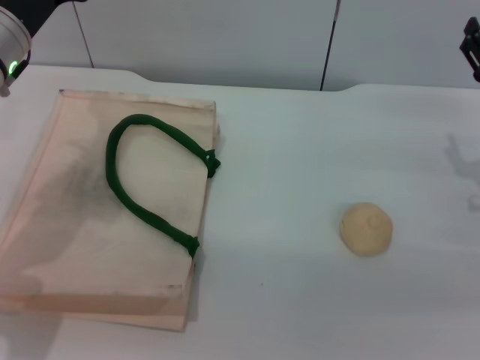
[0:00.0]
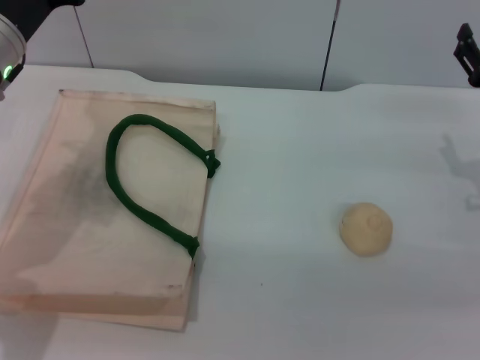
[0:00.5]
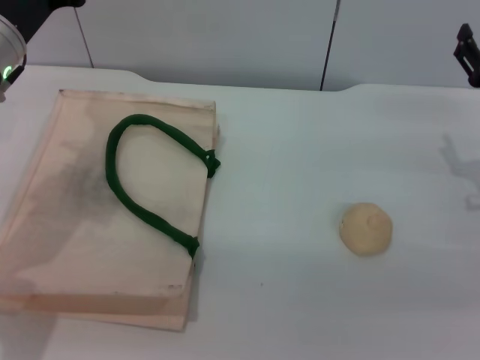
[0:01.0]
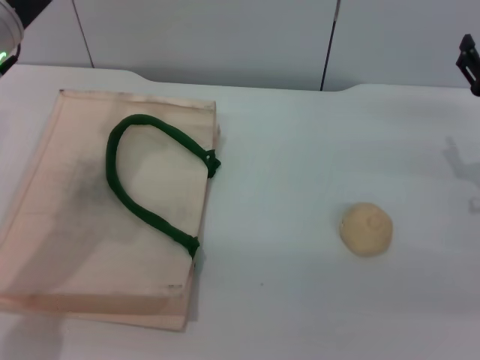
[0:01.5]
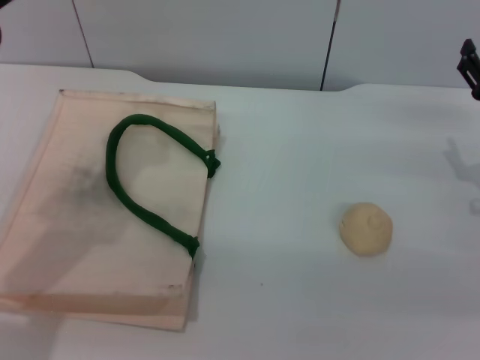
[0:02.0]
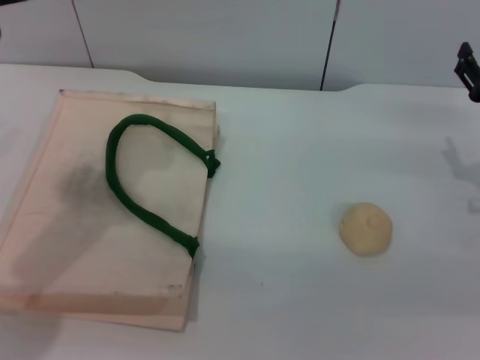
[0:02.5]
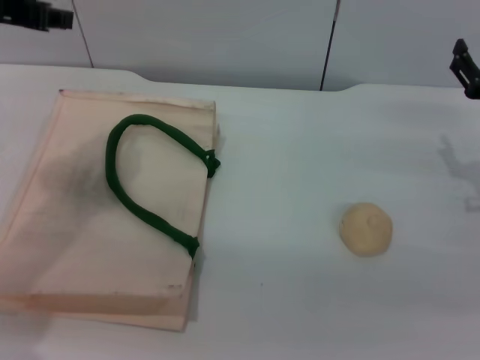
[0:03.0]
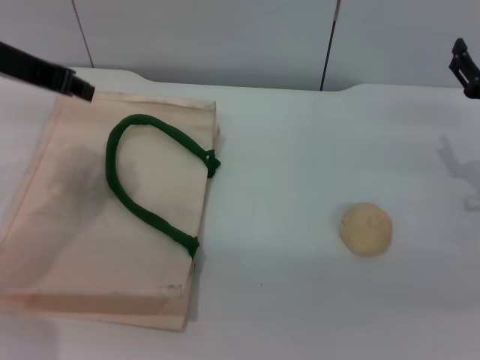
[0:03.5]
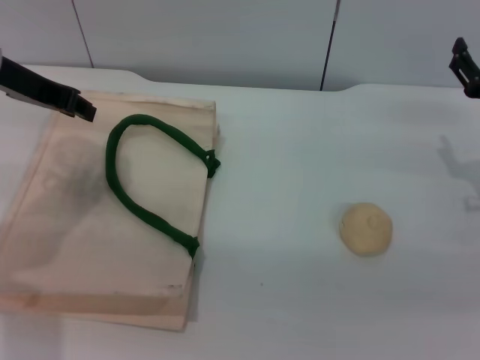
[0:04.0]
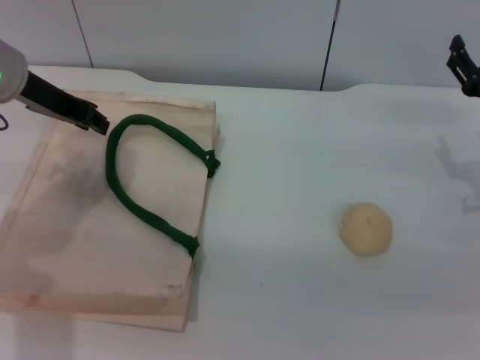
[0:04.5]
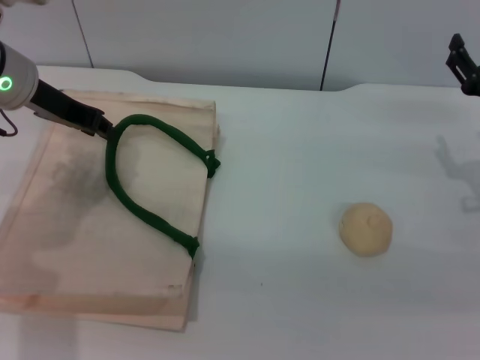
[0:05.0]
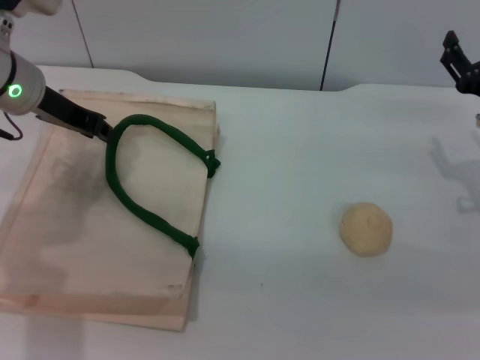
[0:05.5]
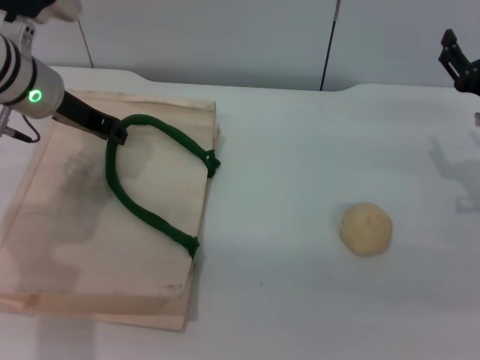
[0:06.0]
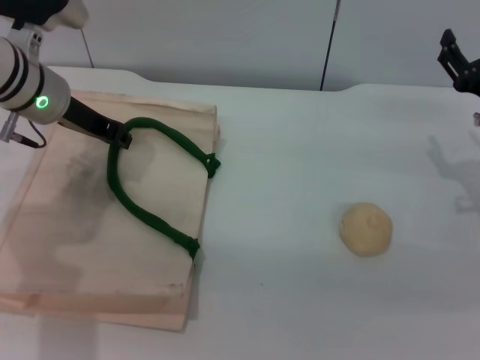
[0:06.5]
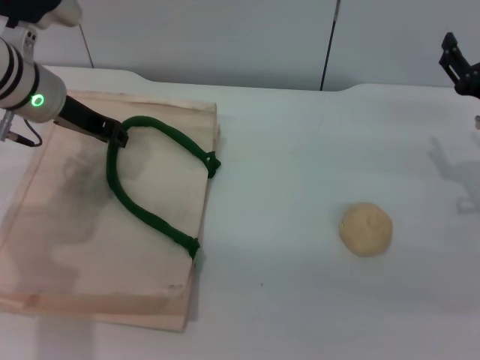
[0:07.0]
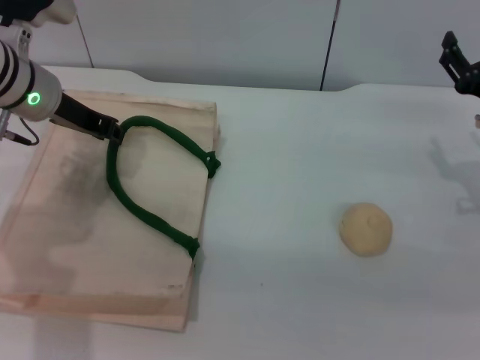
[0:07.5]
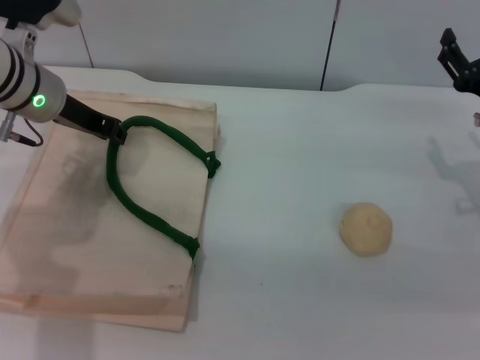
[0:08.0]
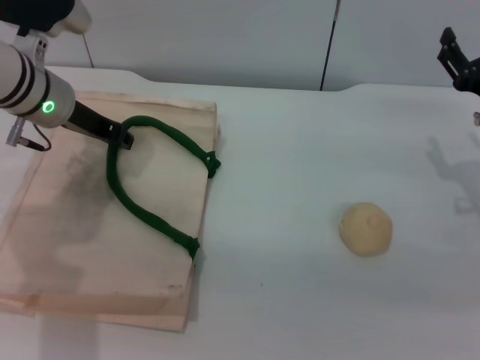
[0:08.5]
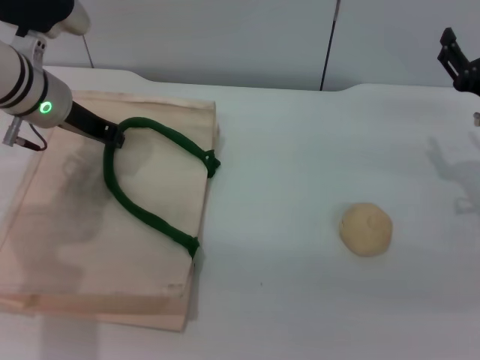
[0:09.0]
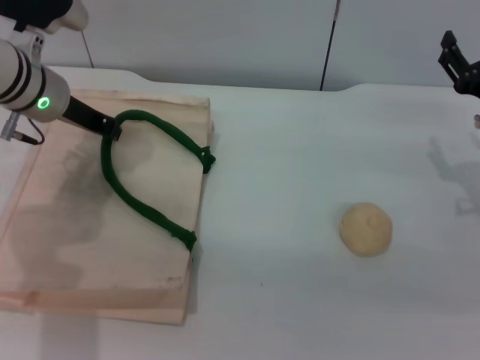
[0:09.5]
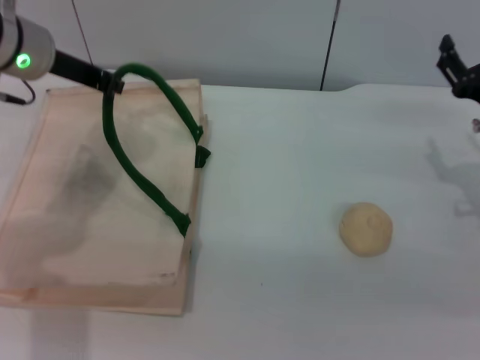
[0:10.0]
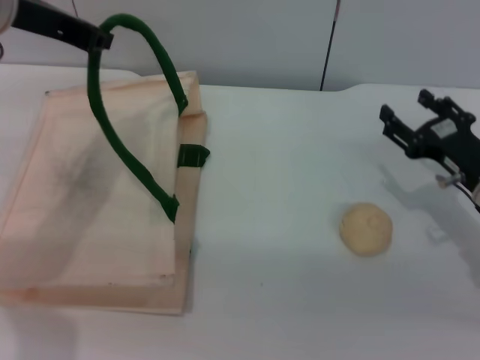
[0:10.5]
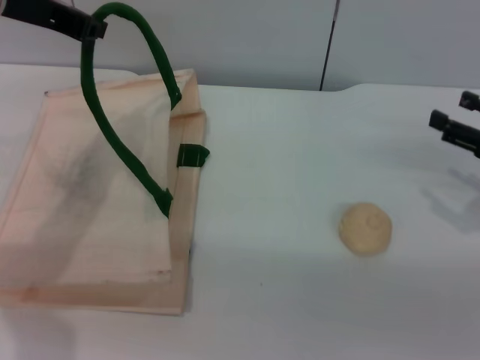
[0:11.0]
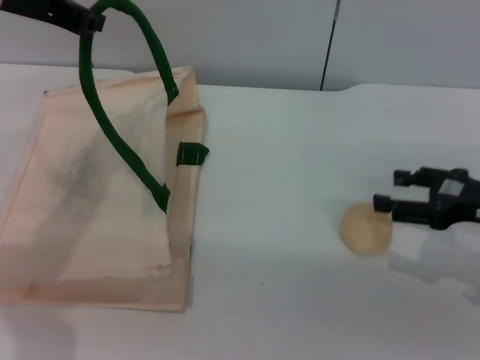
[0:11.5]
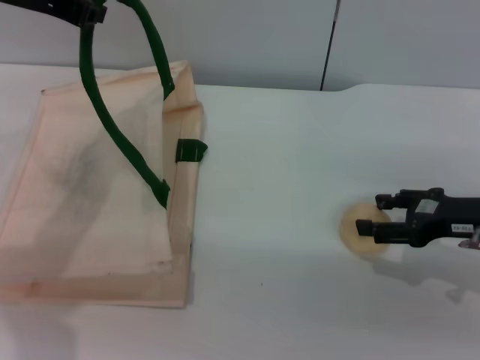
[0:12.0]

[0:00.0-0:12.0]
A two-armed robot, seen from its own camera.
Task of the whole recording: pick up the egg yolk pastry from the table and place it in the white handbag.
Step, 0:00.0 to 0:10.0: Lift the woven bag with the left gripper to open it.
0:00.0 to 0:02.0: The left gripper moves upward and backward, about 10 cm.
0:02.0 to 0:04.0: The left gripper ends up approximately 5 cm from where it was.
0:04.0 to 0:06.0: The left gripper shifts roughly 5 cm downward.
0:06.0 to 0:08.0: Both grippers stay about where they are.
0:08.0 to 0:10.0: The left gripper travels upward by about 5 cm, and closes its fingers.
0:10.0 to 0:12.0: The left gripper is displaced upward by roughly 10 cm.

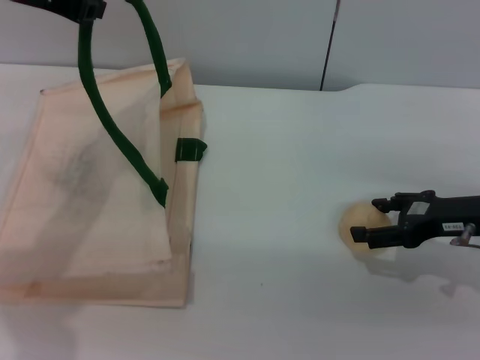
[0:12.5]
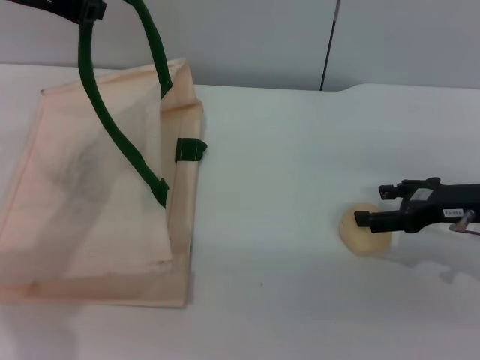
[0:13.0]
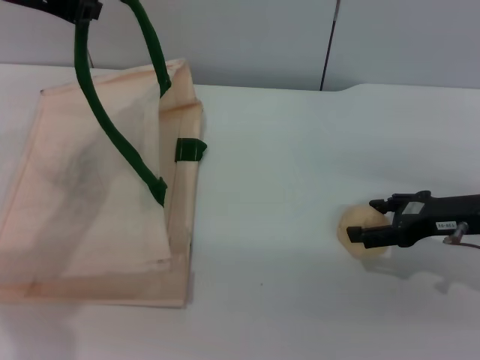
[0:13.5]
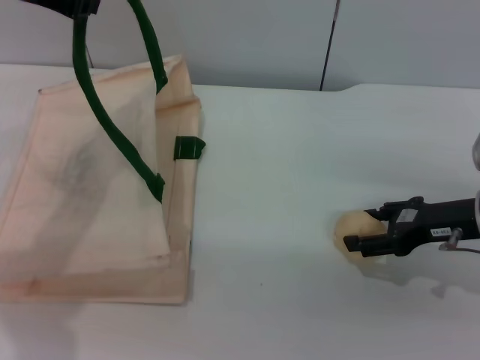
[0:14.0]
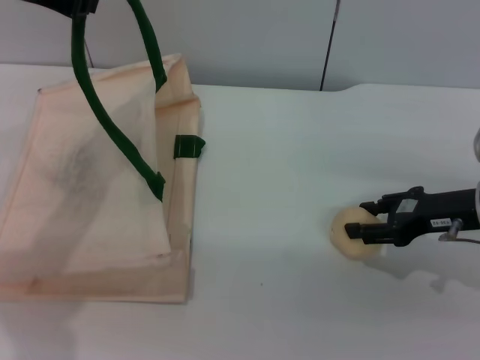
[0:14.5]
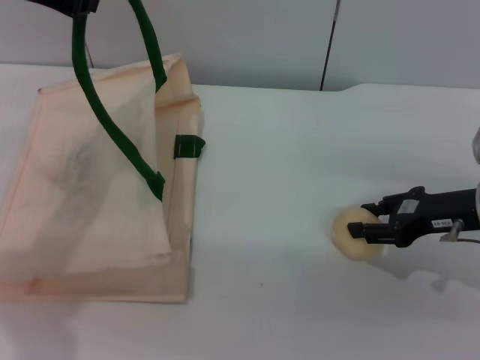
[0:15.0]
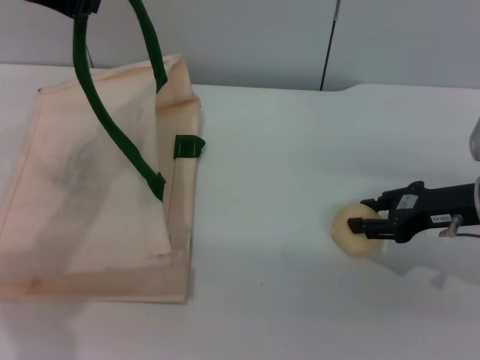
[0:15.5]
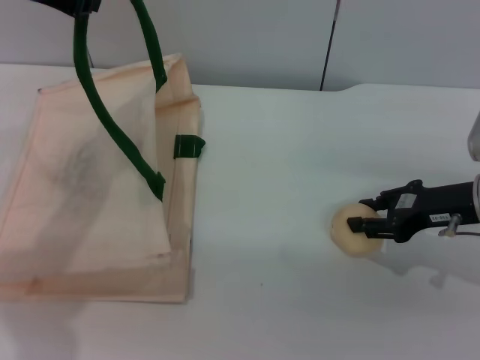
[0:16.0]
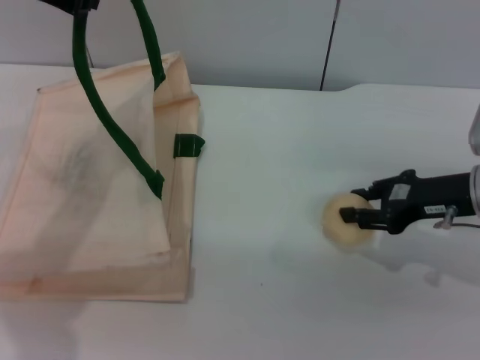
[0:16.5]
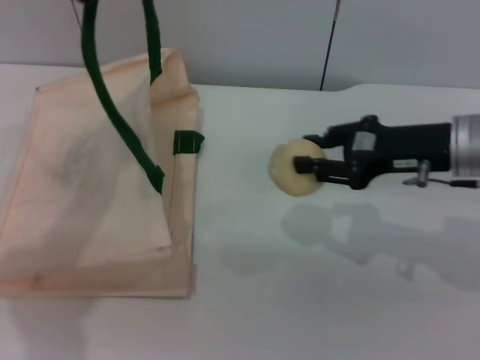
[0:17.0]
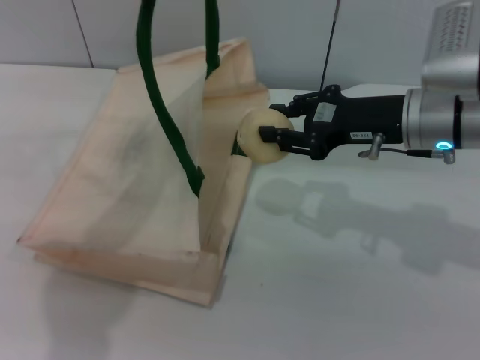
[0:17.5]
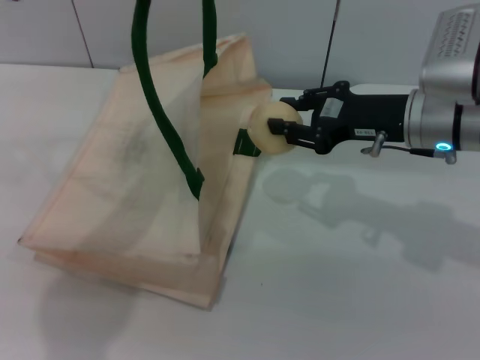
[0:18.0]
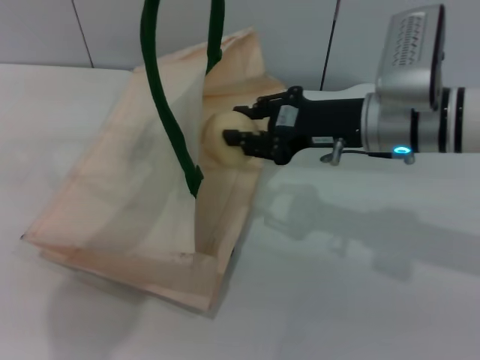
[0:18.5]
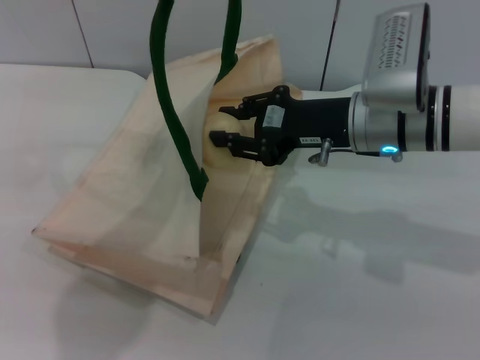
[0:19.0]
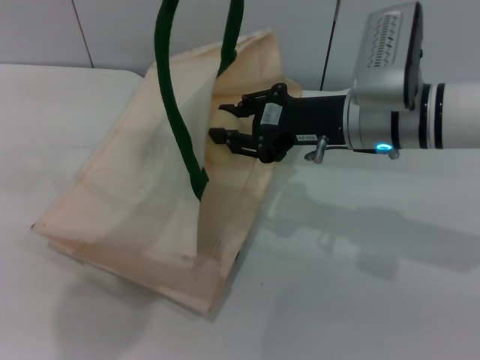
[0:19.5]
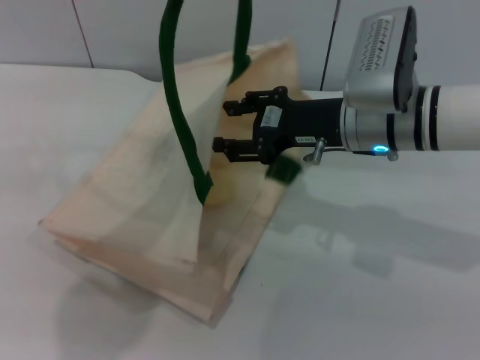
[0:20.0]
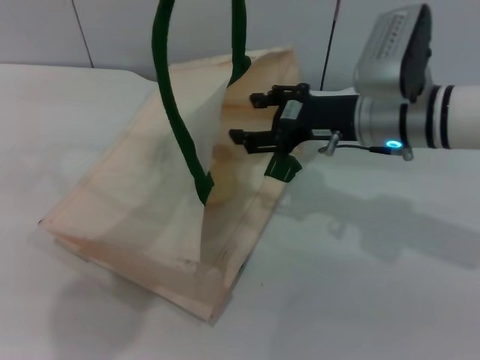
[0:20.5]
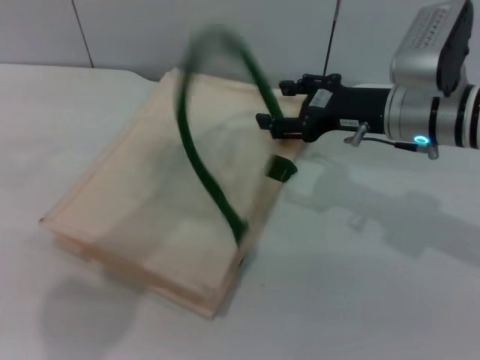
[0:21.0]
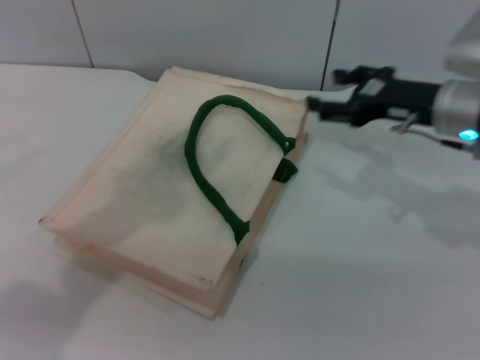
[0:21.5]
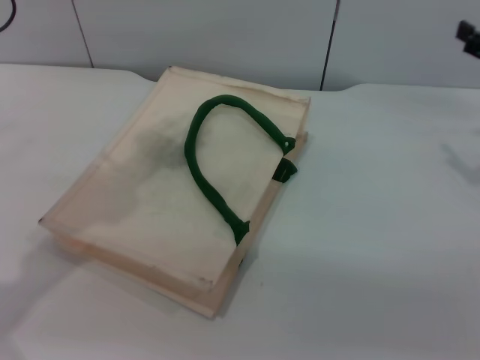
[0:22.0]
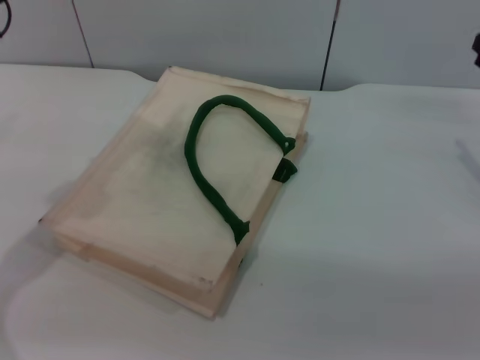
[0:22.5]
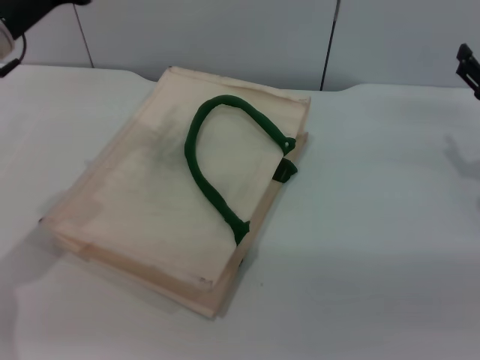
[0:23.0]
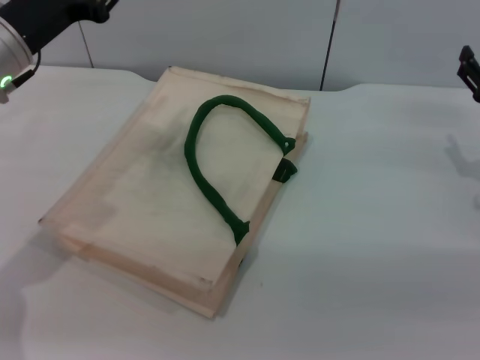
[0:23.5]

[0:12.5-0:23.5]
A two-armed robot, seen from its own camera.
Task of the whole recording: pick up the egg yolk pastry from the table and place it in the white handbag.
Step, 0:12.5 to 0:16.5: Pick up the egg yolk pastry with the right gripper.
Step, 0:17.0 to 0:20.0: Place the egg yolk pastry into the woven bag with the right gripper.
Step, 0:20.5 to 0:21.0: Lower the woven bag with the left gripper to close it.
0:12.5 to 0:14.5: The right gripper closes up.
0:14.5 to 0:16.0: The right gripper closes up.
0:16.0 to 0:18.0: The left gripper travels to the right by roughly 5 cm, while the right gripper moves to the left, some 10 cm.
0:18.0 to 0:20.0: The right gripper is displaced to the left by approximately 5 cm, and opens its fingers.
0:20.0 to 0:21.5: The right gripper is displaced to the right by about 10 cm, and opens its fingers, while the left gripper shifts some 5 cm to the left, and opens.
0:21.5 to 0:23.5: The left gripper is displaced downward by roughly 15 cm. Meanwhile the right gripper travels to the right and downward by about 10 cm.

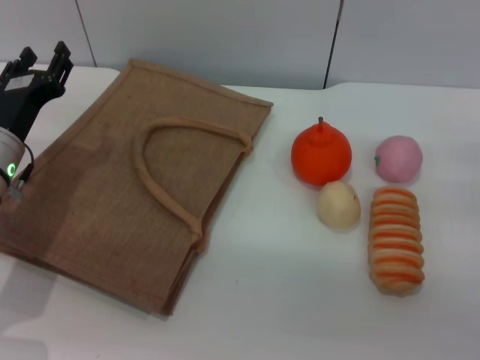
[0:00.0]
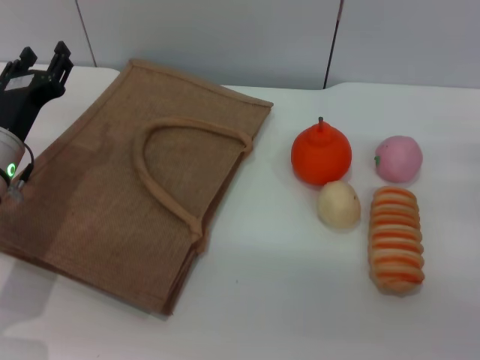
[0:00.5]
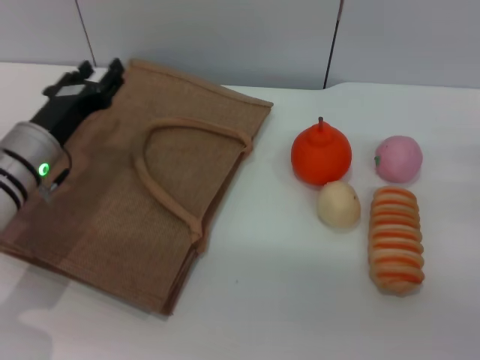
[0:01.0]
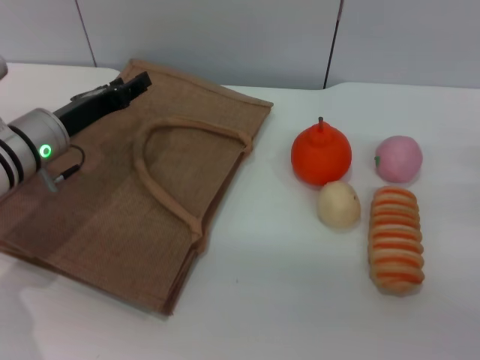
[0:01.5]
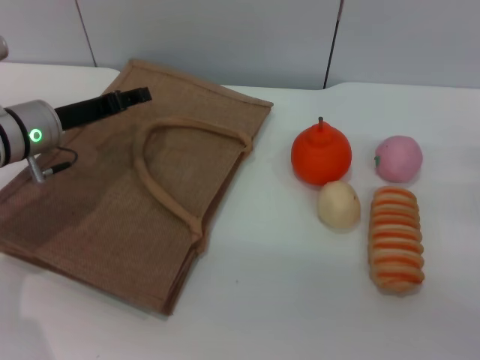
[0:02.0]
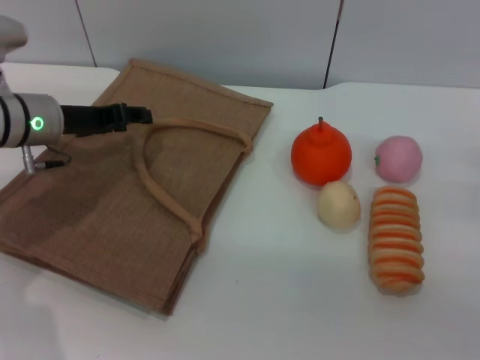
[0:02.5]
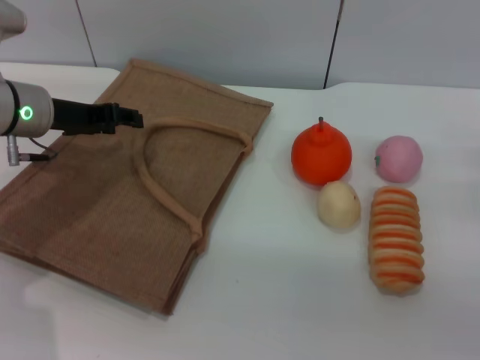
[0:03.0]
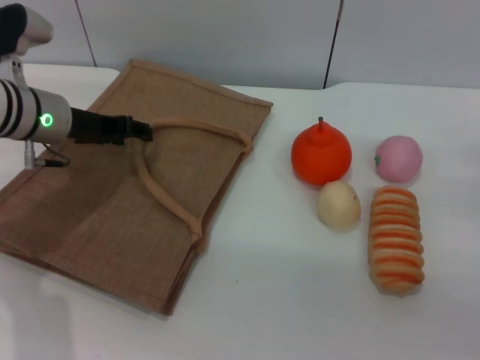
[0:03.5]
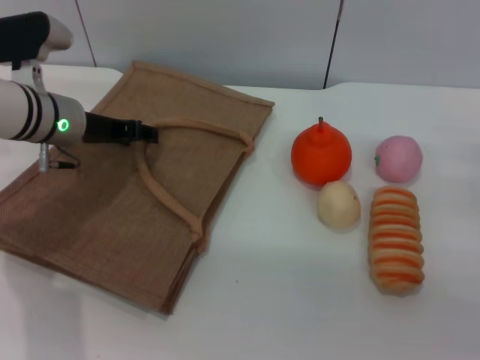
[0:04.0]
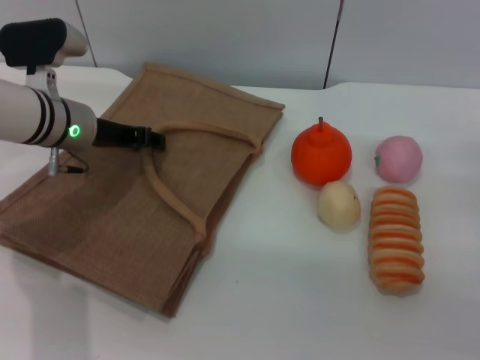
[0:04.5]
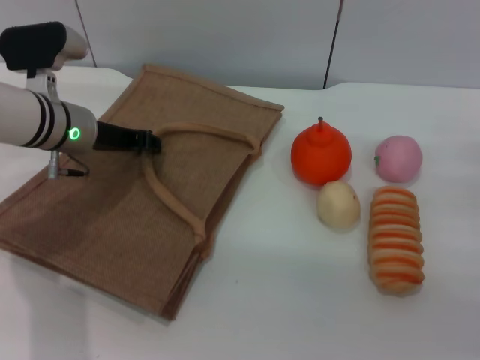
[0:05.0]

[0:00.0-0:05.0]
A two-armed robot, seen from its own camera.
Task of the whole recording: pick up the peach from the table and place it in the brown handbag.
0:00.0 to 0:02.5: The left gripper shifts about 5 cm forward.
0:02.5 to 0:05.0: The left gripper closes its fingers.
